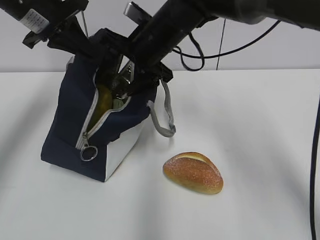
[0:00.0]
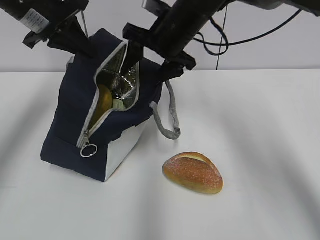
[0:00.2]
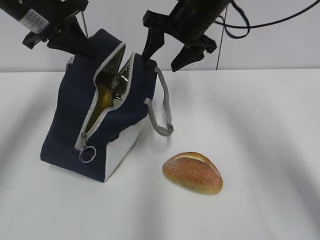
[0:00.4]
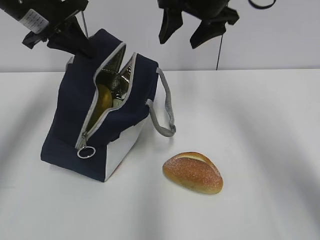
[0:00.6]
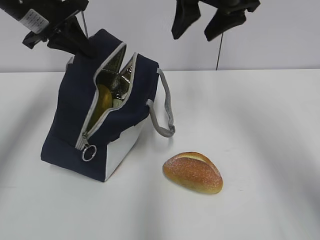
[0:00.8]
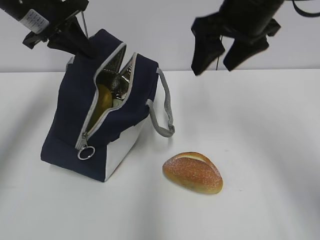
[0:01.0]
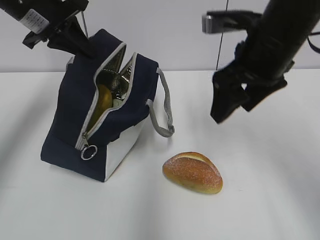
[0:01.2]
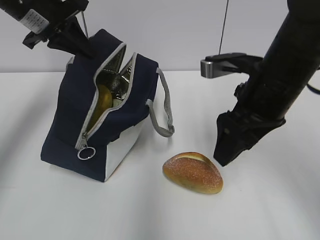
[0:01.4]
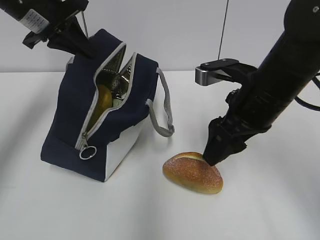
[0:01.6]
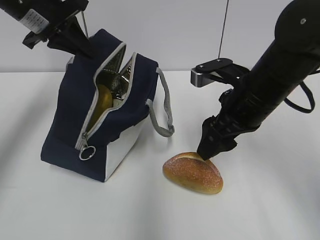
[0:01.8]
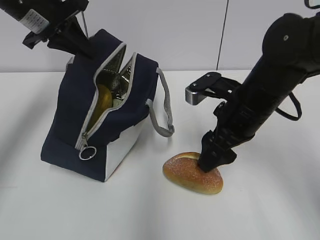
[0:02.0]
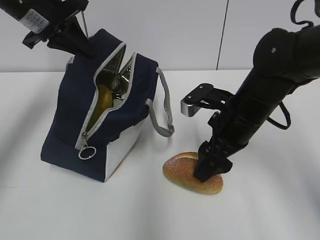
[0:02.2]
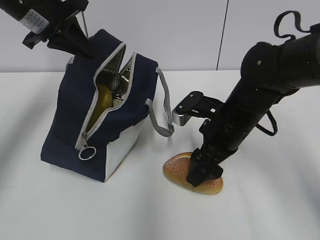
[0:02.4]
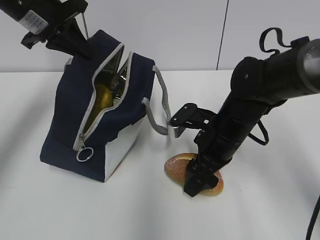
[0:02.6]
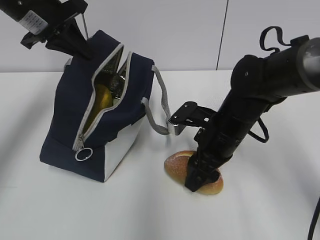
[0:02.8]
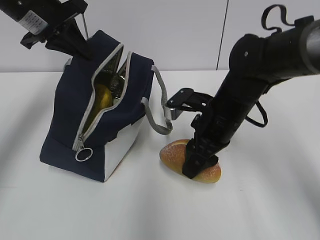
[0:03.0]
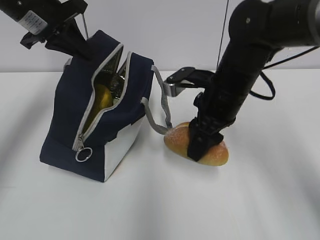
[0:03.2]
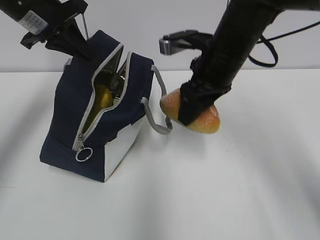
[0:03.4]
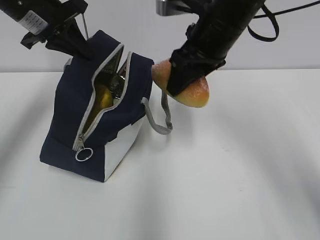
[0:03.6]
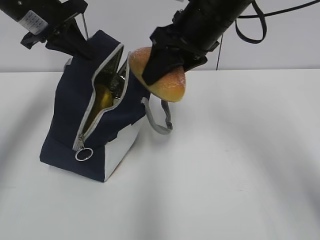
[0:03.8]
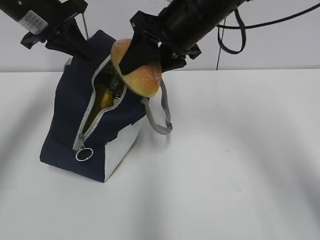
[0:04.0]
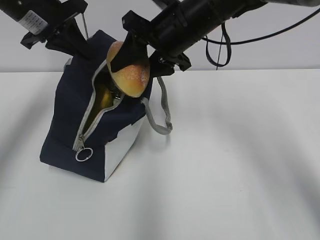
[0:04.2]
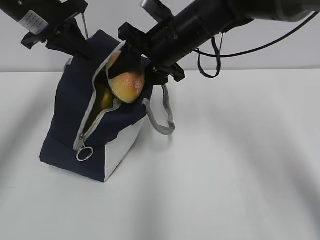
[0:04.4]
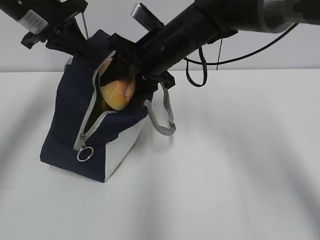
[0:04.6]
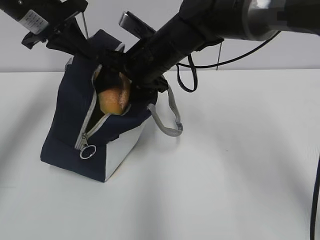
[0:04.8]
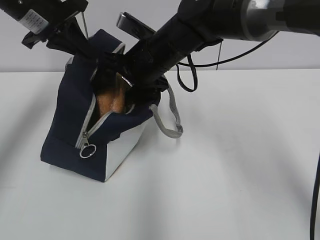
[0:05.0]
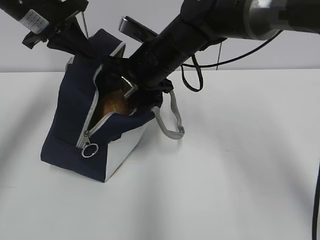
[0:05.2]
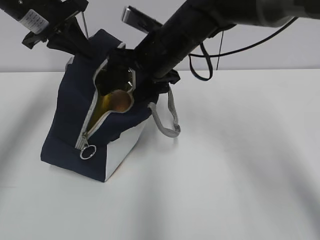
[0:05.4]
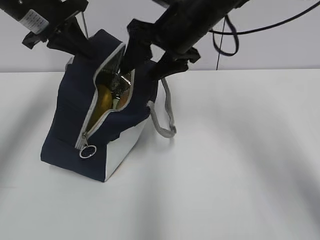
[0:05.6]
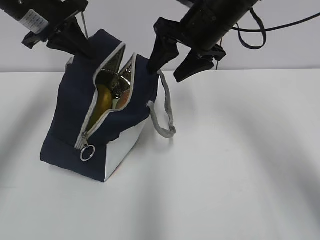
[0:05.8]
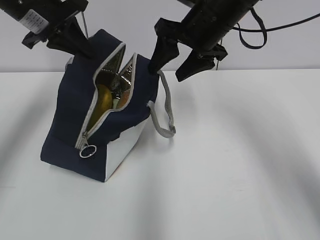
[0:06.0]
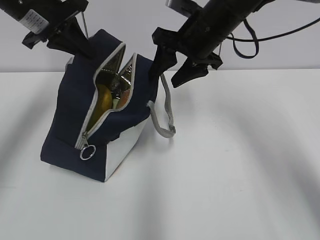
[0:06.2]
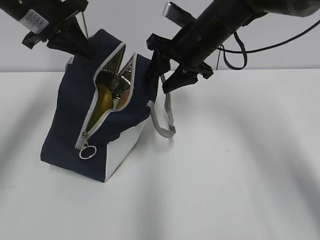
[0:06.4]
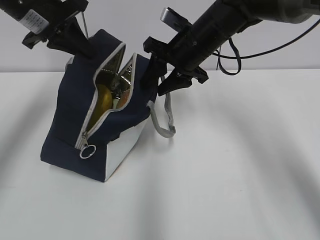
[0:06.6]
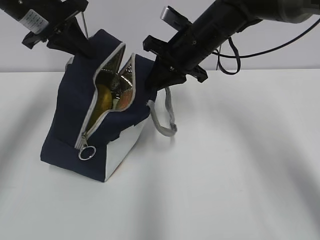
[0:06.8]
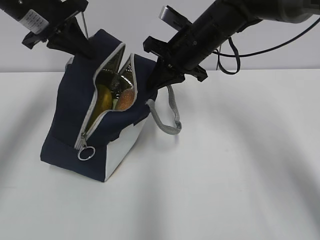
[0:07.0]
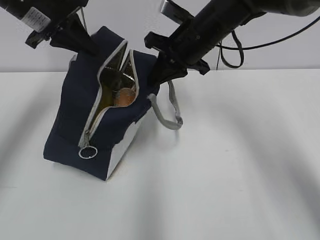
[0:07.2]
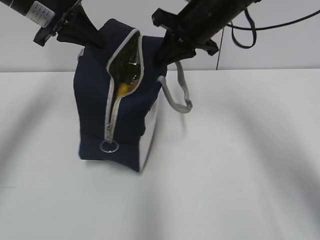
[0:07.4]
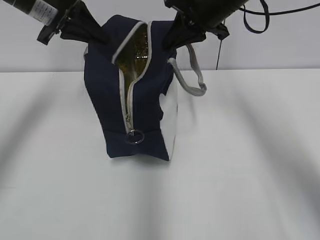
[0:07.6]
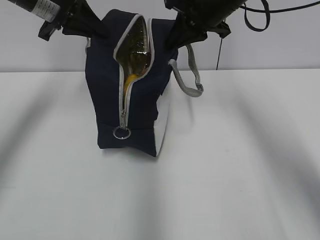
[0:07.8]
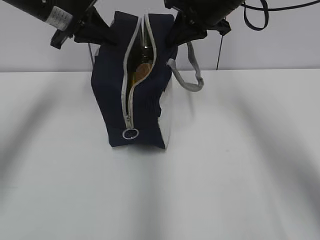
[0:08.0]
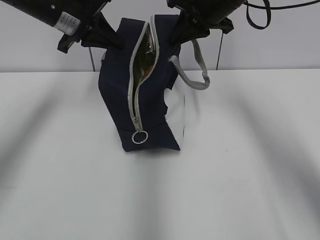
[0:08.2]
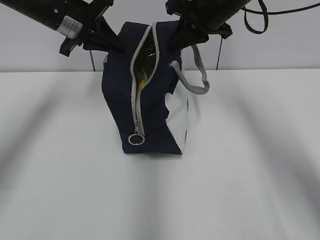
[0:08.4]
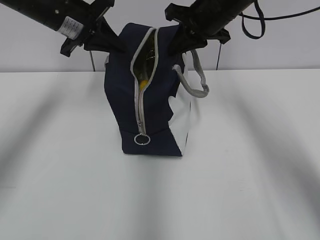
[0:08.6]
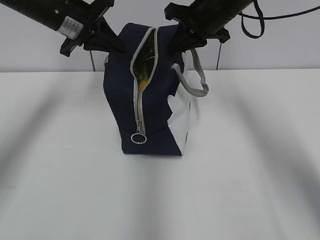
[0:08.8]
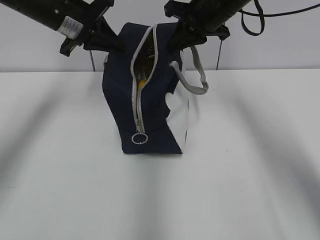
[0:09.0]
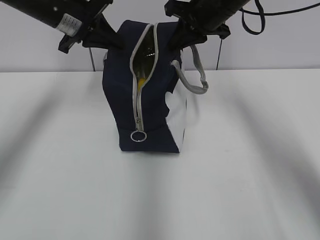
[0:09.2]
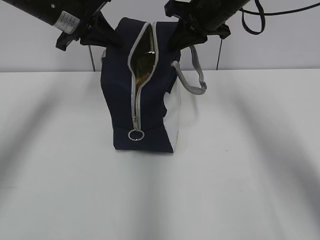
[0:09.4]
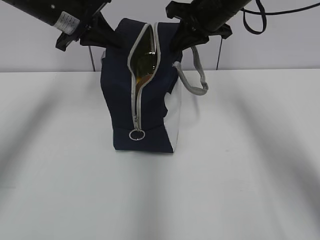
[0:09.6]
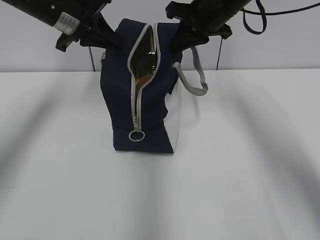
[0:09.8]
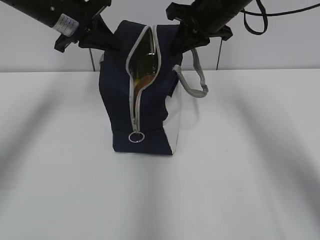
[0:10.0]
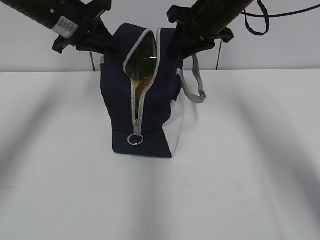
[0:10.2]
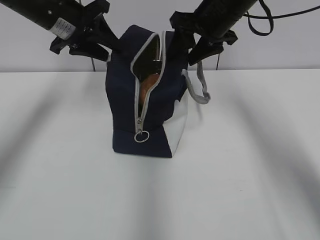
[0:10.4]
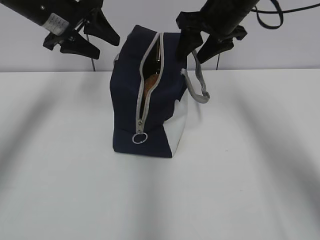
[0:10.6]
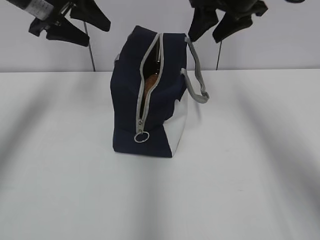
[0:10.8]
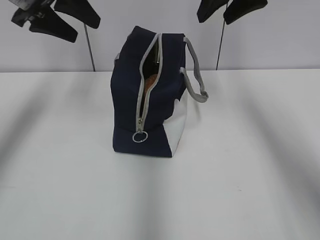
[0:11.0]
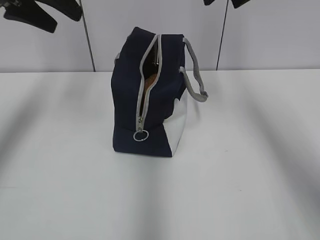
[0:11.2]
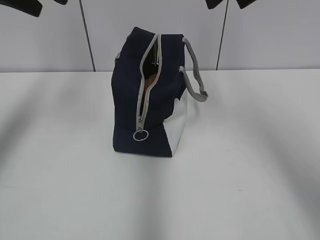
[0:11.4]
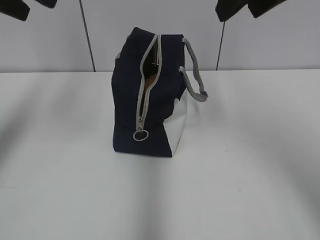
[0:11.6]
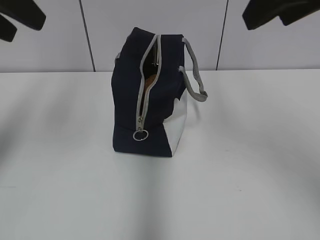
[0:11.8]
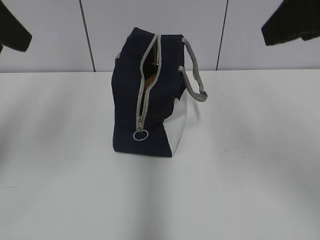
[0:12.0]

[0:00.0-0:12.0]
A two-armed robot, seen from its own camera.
Step, 0:00.0 to 0:02.6: Grab the bread with your right hand.
Step, 0:05.6 to 0:07.0: Grab the lunch bag with your right hand.
Step, 0:07.2 to 0:10.2: Move the lunch bag to the right.
0:00.0 to 0:01.6: The right gripper moves backward and to the right, roughly 20 cm.
0:01.6 to 0:03.0: The right gripper is displaced downward by about 10 cm.
0:03.0 to 0:04.4: The right gripper is displaced upward, forward and to the left by some 15 cm.
0:04.4 to 0:06.0: The right gripper moves to the right, some 5 cm.
0:06.0 to 0:07.6: The right gripper closes its fingers.
0:07.6 to 0:09.0: The grippers move only a little.
0:09.0 to 0:10.4: The right gripper opens, while the left gripper opens up.
0:10.4 to 0:12.0: Both grippers move backward and upward, approximately 25 cm.

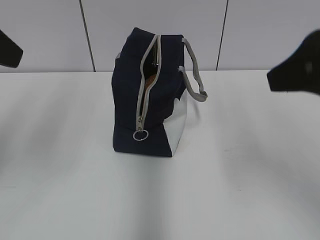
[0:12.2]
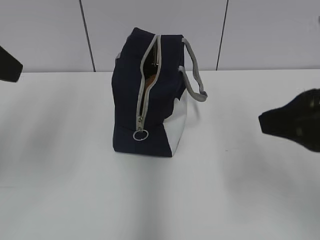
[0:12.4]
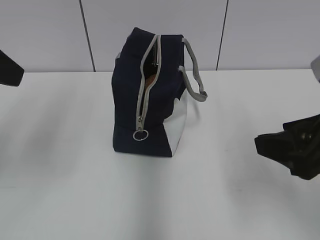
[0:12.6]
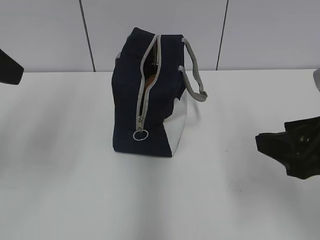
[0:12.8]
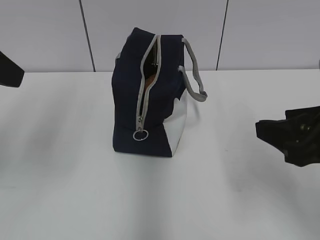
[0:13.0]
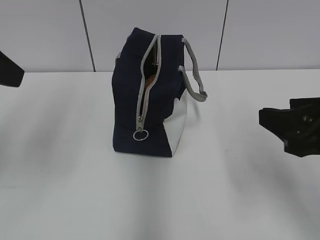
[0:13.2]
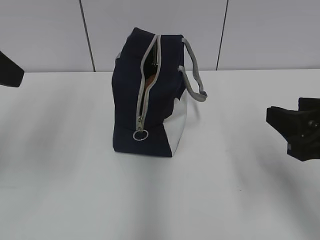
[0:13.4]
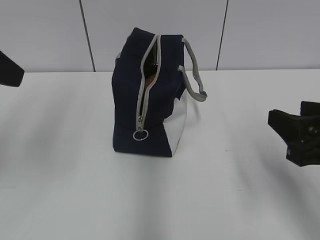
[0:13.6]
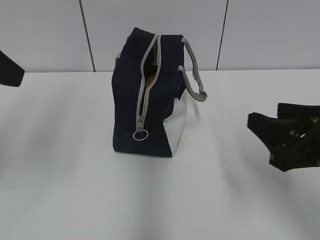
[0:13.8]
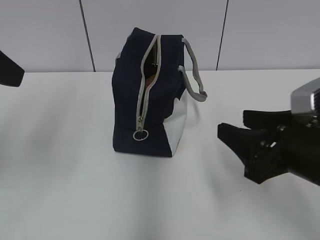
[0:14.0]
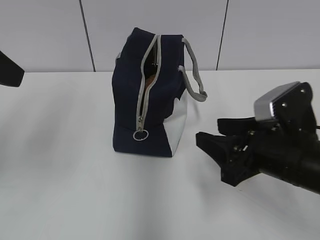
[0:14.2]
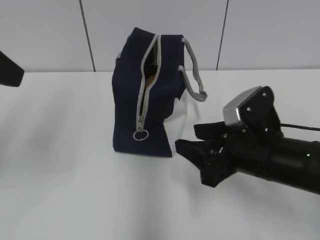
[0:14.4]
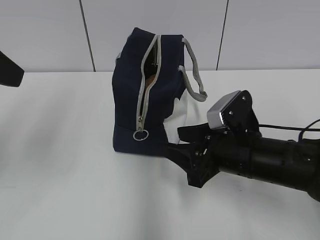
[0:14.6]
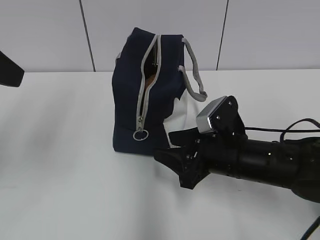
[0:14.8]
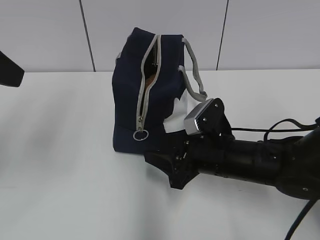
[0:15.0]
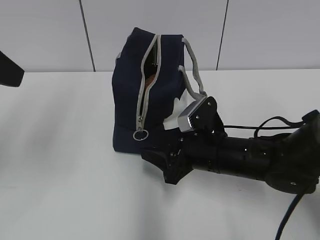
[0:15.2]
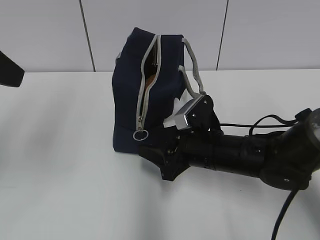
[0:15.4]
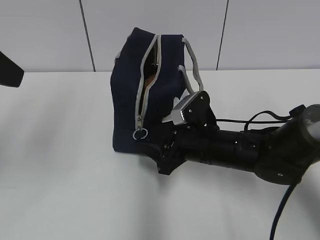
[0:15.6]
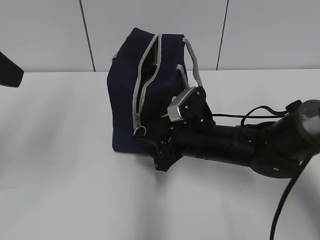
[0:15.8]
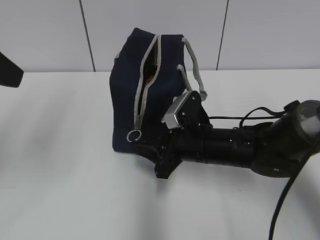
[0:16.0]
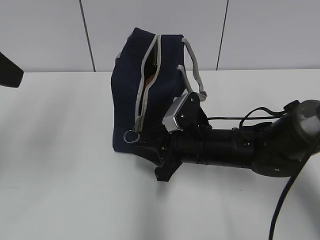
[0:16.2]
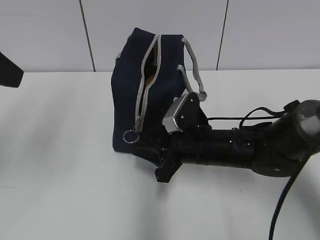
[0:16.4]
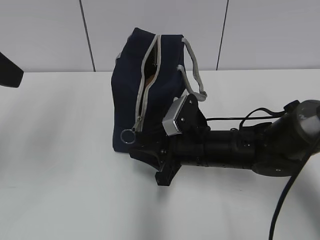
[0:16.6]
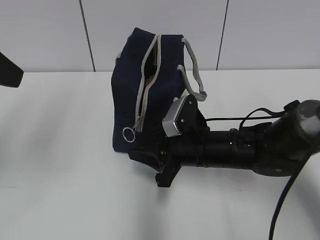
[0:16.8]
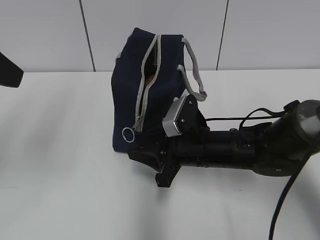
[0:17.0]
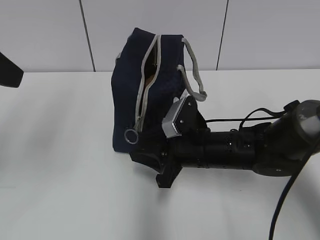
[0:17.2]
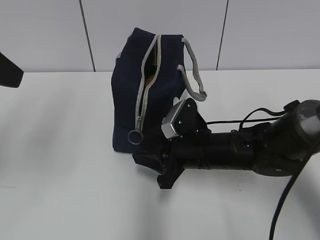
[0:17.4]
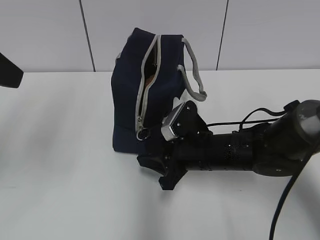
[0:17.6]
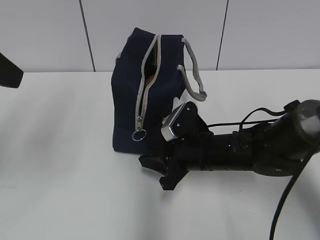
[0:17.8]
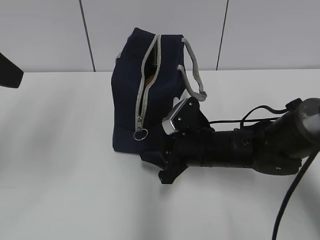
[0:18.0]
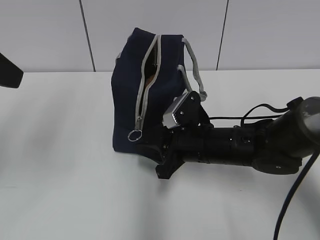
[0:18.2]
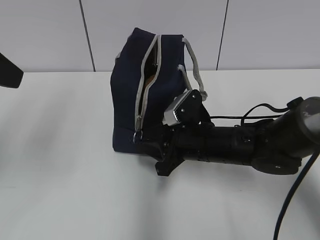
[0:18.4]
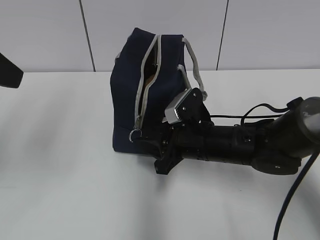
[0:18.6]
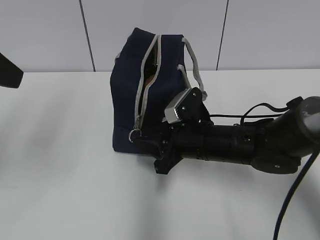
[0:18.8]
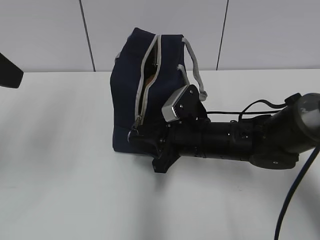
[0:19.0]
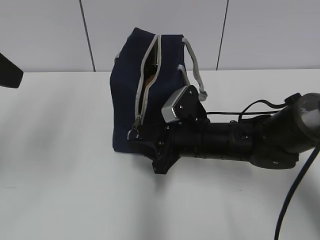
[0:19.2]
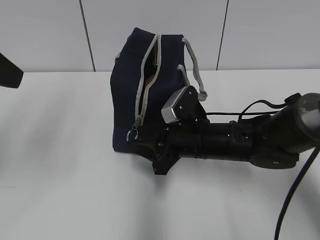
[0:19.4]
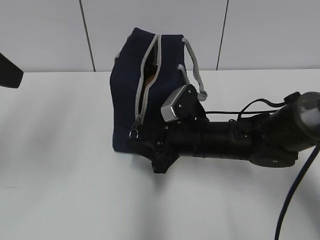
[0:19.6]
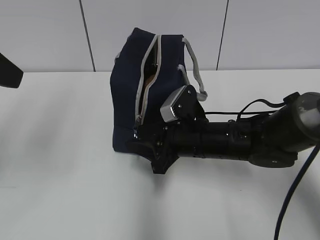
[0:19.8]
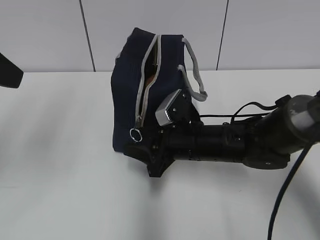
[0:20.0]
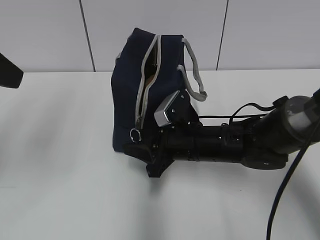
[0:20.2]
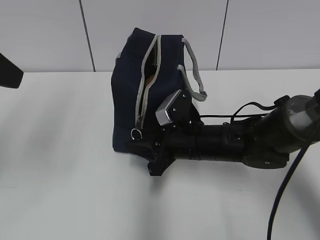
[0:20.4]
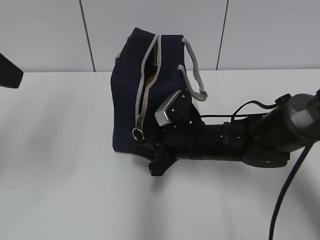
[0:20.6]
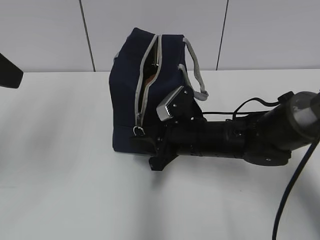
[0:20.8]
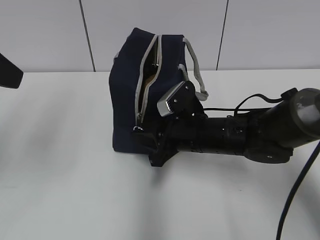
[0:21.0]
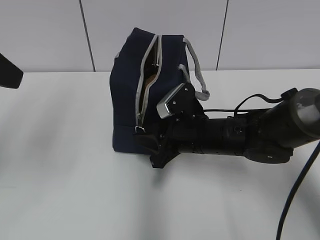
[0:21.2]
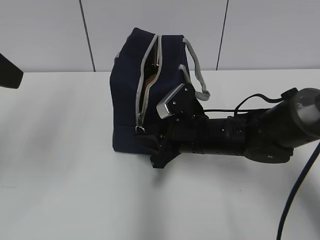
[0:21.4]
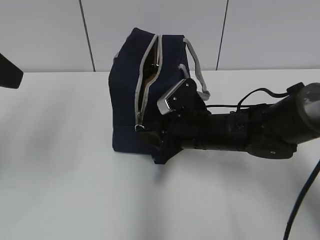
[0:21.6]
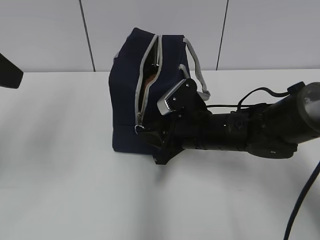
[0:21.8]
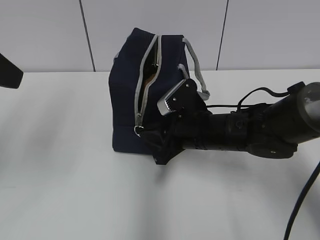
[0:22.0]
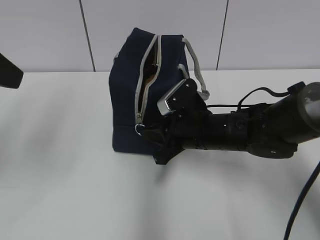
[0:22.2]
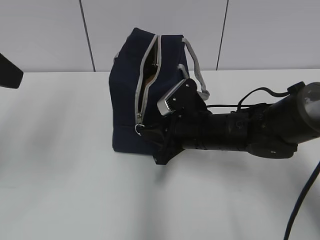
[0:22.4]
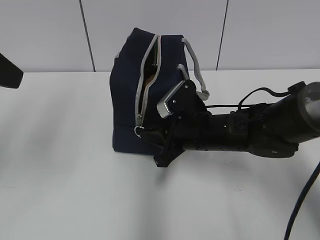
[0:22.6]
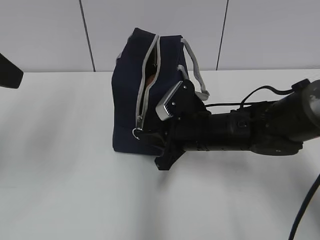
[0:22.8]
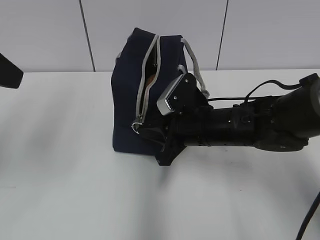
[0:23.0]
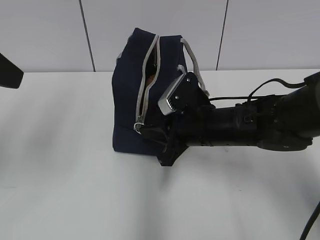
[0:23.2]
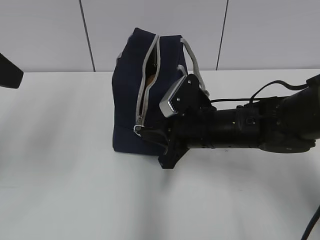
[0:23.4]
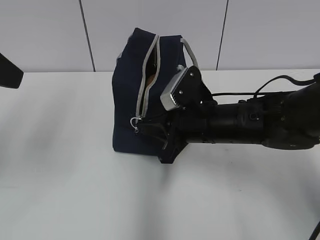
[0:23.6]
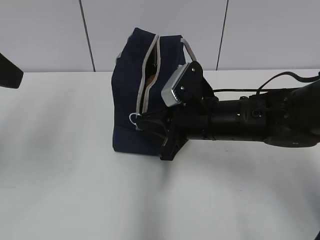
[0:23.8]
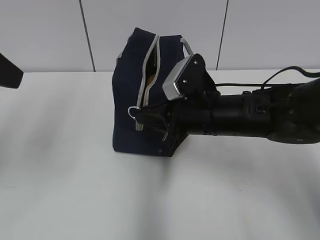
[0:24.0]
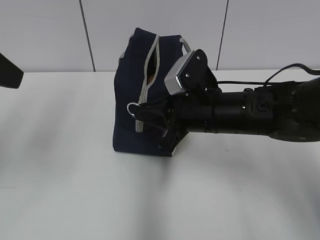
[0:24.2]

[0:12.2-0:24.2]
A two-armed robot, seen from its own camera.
0:12.2 to 0:13.8: The right gripper moves downward, approximately 15 cm.
0:13.8 to 0:15.2: The right gripper goes roughly 20 cm forward, downward and to the left.
0:15.2 to 0:18.2: The grippers move only a little.
0:18.2 to 0:19.8: Both grippers stay put.
0:19.8 to 0:21.2: The grippers make only small movements.
0:21.2 to 0:22.6: Both grippers stay put.
0:22.6 to 0:24.2: The right gripper shifts roughly 5 cm upward.
